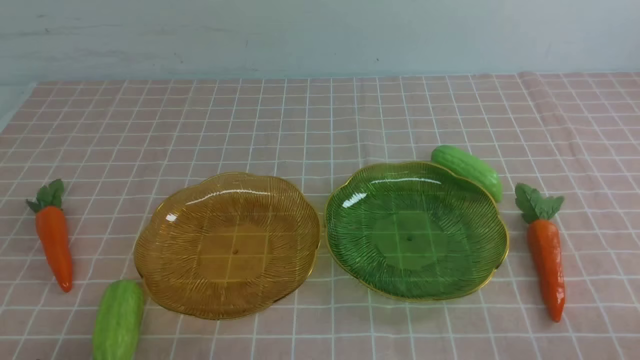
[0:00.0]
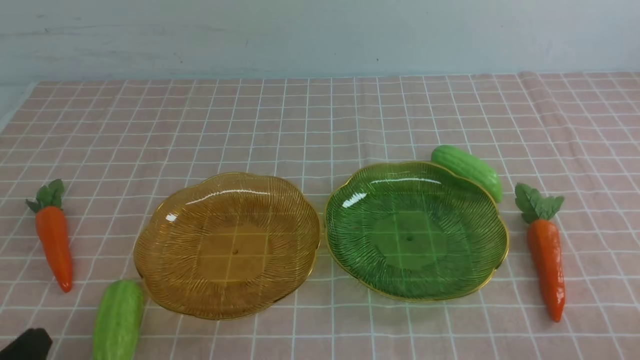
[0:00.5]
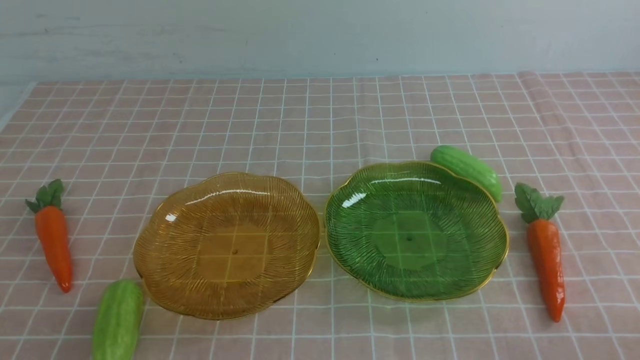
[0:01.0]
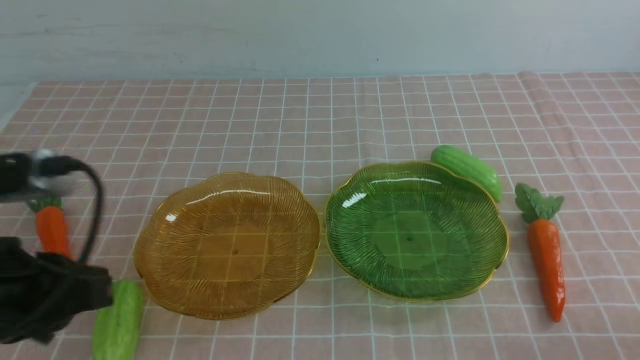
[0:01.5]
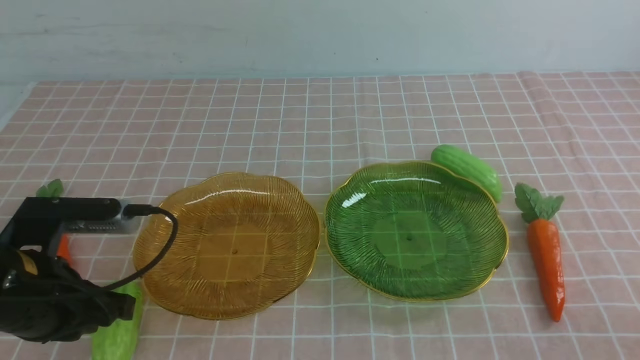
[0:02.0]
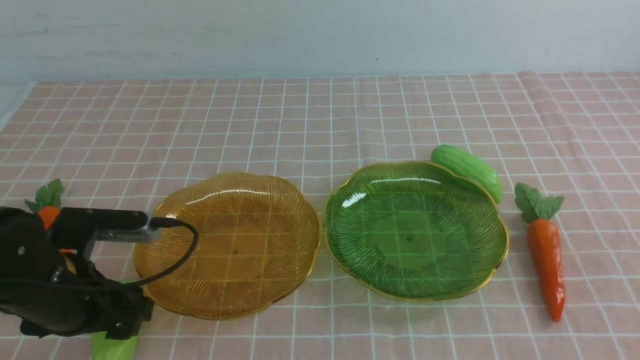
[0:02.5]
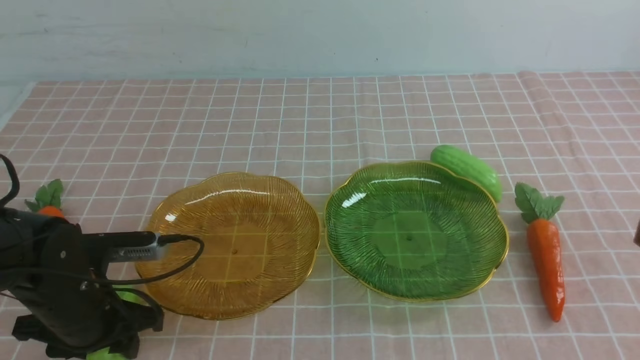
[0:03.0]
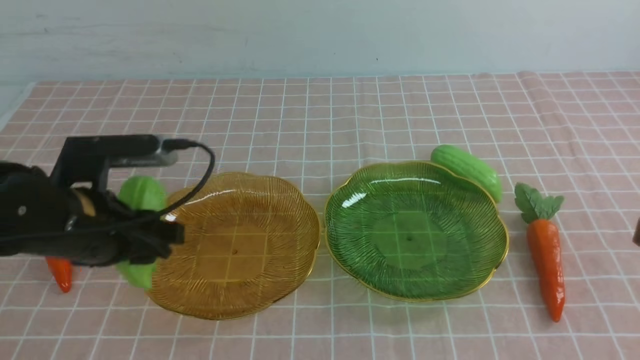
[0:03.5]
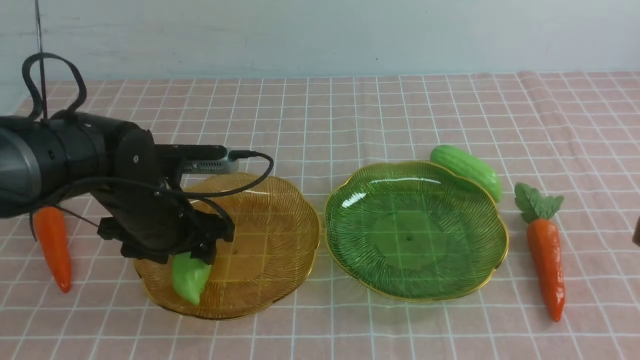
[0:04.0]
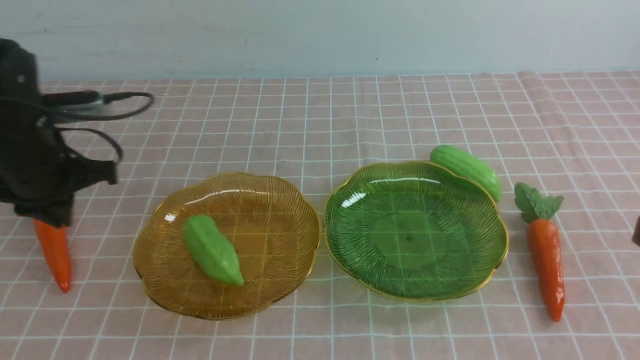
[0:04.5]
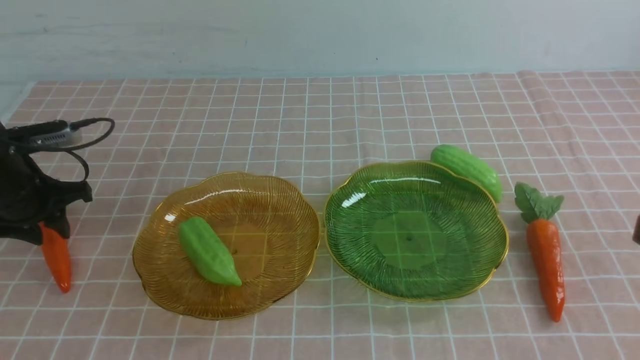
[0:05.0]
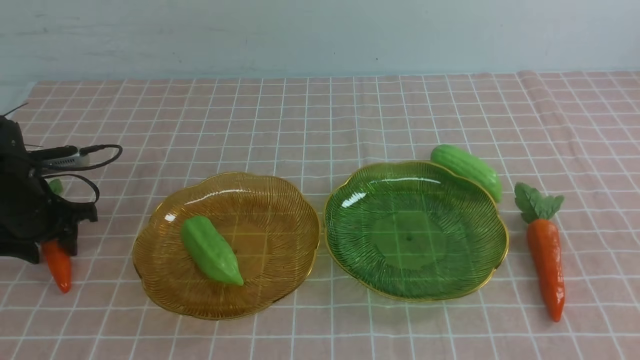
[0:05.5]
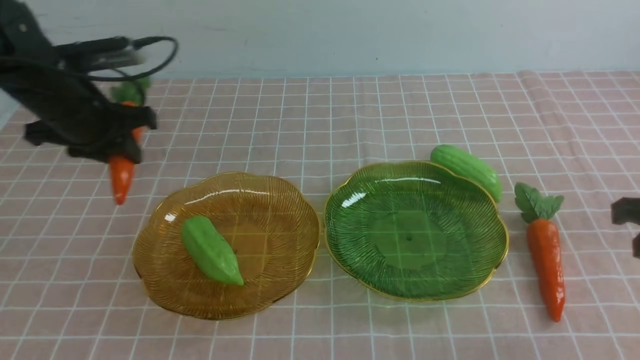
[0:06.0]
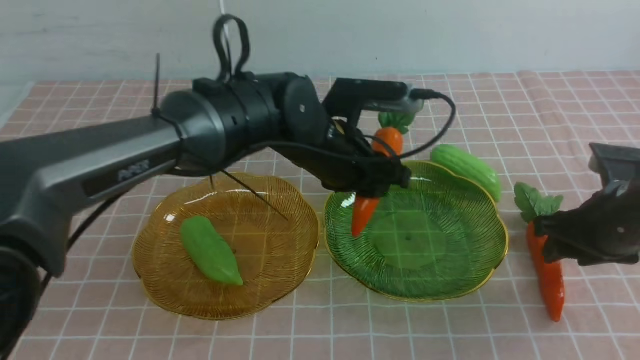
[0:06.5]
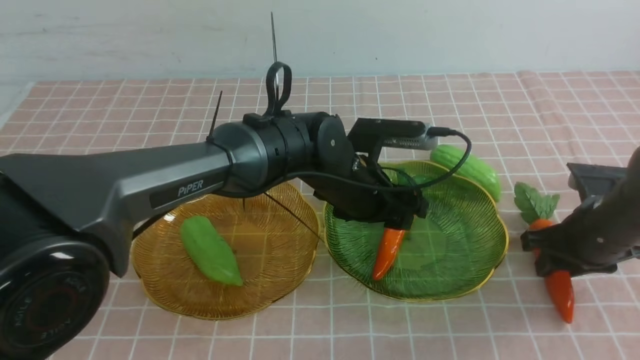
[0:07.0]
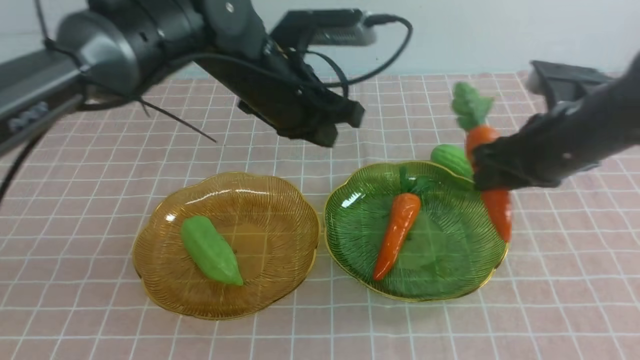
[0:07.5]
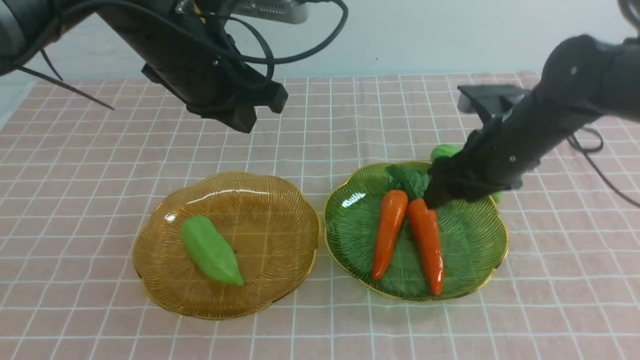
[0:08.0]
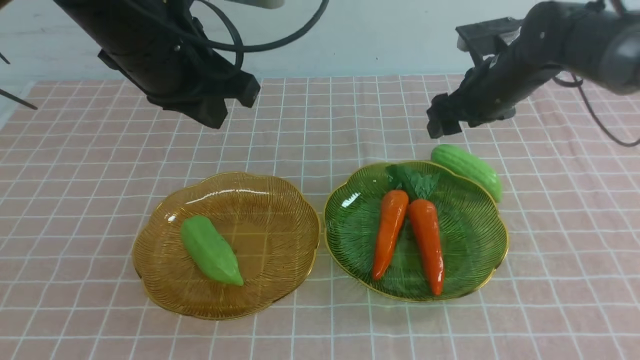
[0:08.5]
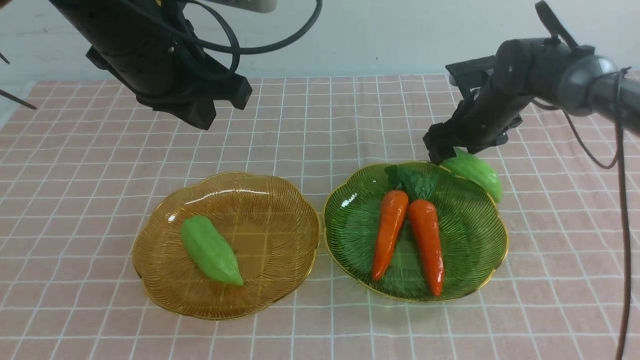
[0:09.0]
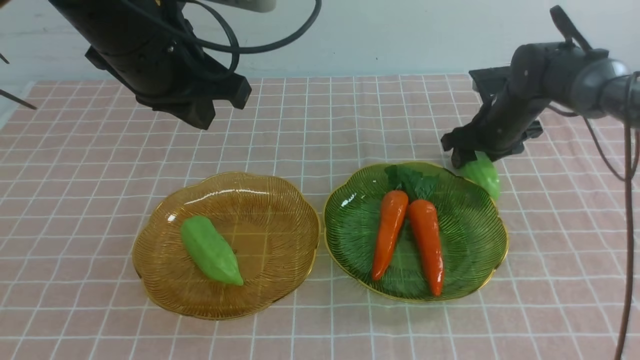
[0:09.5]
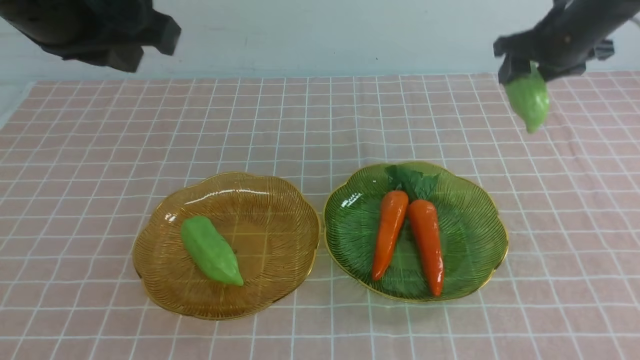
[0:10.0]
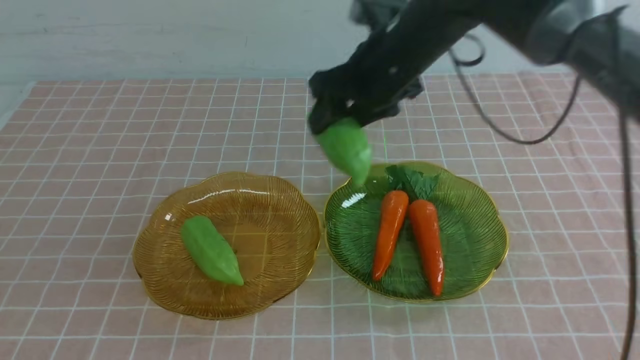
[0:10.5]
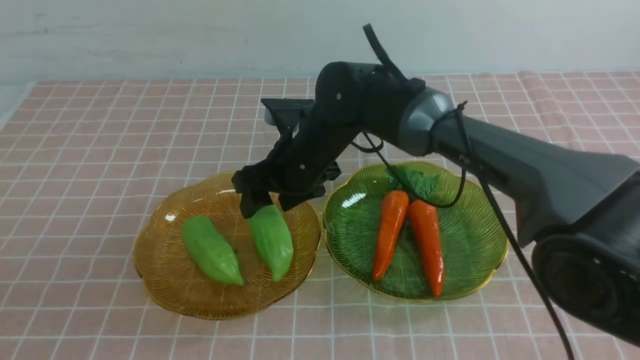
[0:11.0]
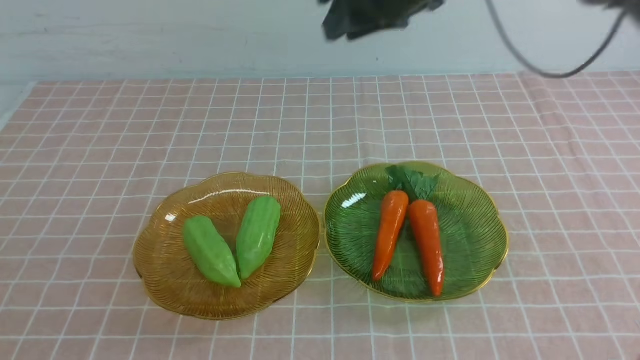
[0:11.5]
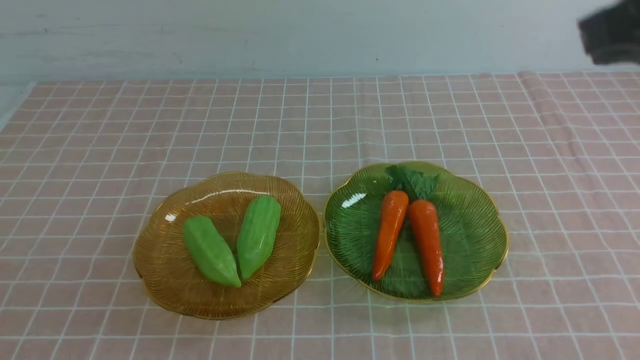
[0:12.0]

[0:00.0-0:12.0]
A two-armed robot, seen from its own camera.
Step, 0:00.0 to 0:04.0: use the left arm to grab a chayote and put it into the left plate.
Step, 0:04.5 to 0:06.0: use the left arm to grab a carrot and put it into the right plate.
Step, 0:06.5 to 0:07.5: use the right arm to grab a carrot and put it into the right plate.
Step, 0:08.0 to 0:11.0: Grab the chayote with your right arm and put it on the left plate.
0:00.0 to 0:02.0: The left gripper goes roughly 15 cm forward.
0:02.0 to 0:04.0: The left gripper is displaced forward and to the right by about 10 cm, and opens, while the right gripper moves upward, roughly 5 cm.
0:04.0 to 0:06.0: The left gripper shifts some 10 cm forward and to the left, and closes. Meanwhile the right gripper goes roughly 15 cm forward and downward.
0:06.0 to 0:08.0: The left gripper heads upward, to the right and backward, covering roughly 20 cm, and closes. Meanwhile the right gripper travels forward and to the left by approximately 25 cm, and opens its fingers.
0:08.0 to 0:10.0: The right gripper heads to the left and upward, covering about 10 cm. The left gripper is displaced backward, upward and to the left by some 20 cm.
0:10.0 to 0:12.0: The left gripper goes approximately 15 cm downward and backward. The right gripper heads backward and to the right, covering about 50 cm, and closes its fingers.
